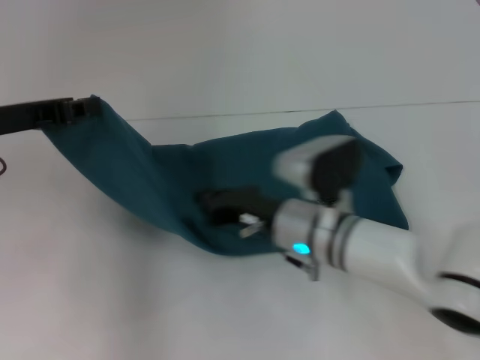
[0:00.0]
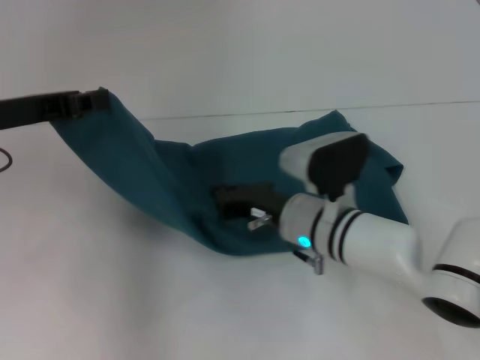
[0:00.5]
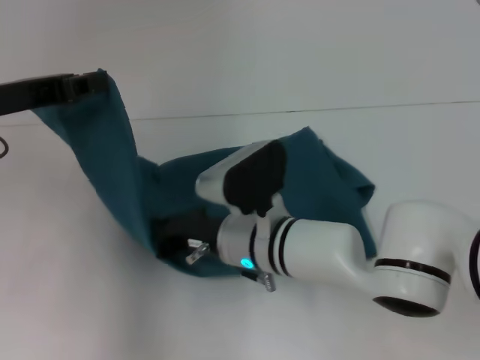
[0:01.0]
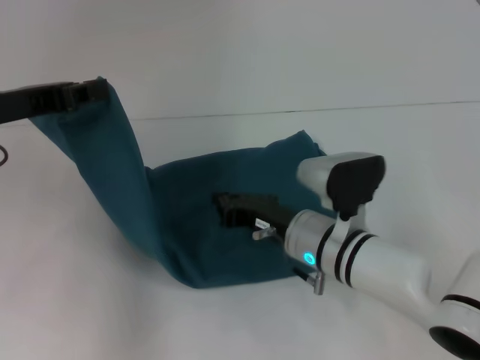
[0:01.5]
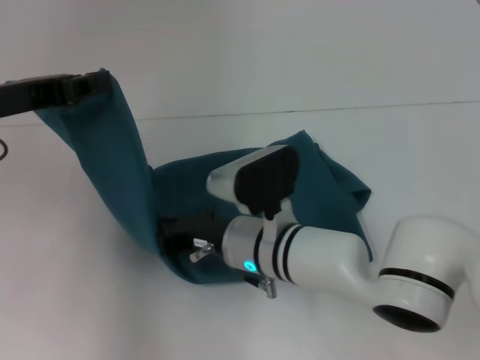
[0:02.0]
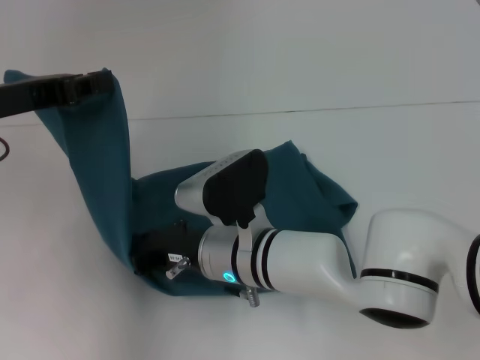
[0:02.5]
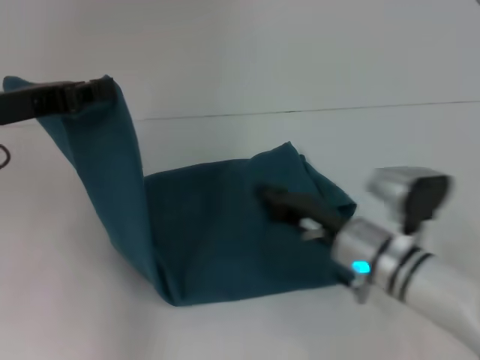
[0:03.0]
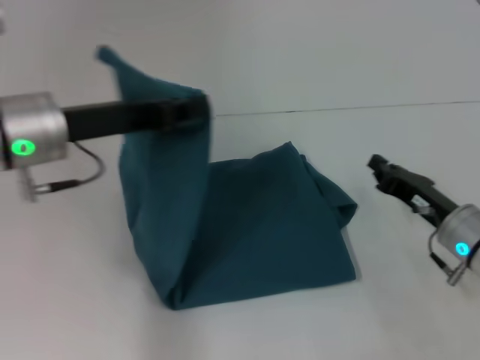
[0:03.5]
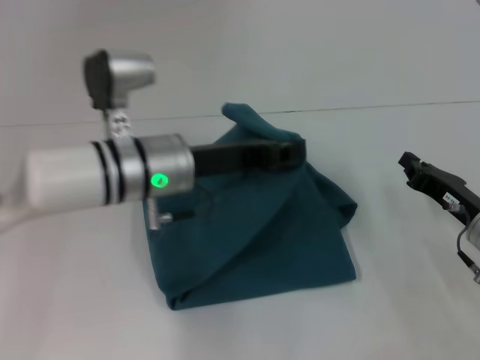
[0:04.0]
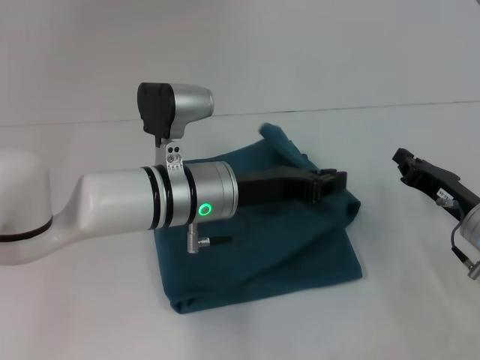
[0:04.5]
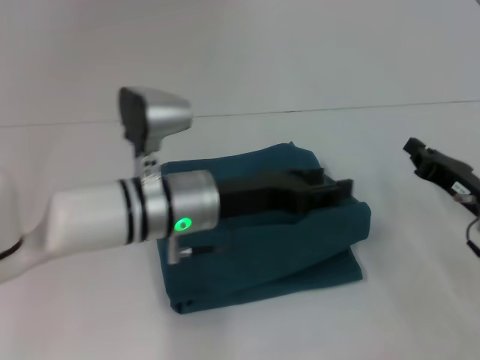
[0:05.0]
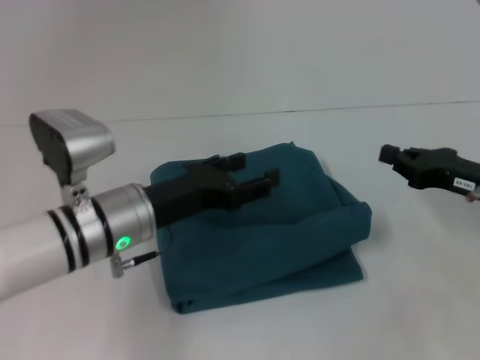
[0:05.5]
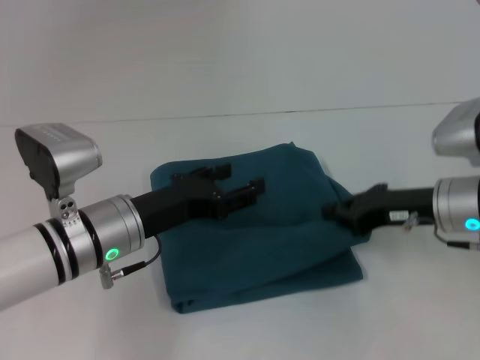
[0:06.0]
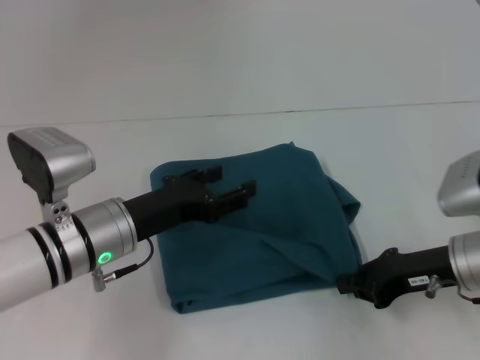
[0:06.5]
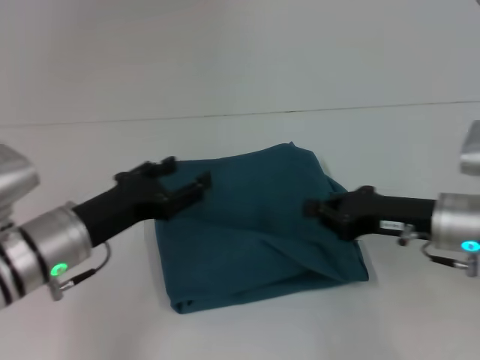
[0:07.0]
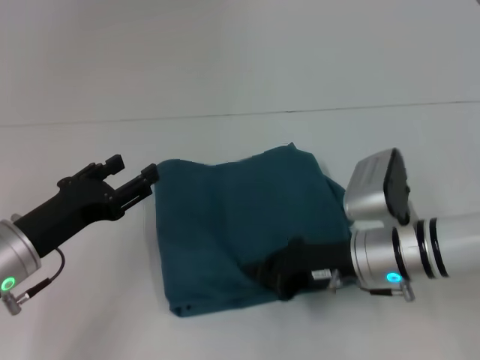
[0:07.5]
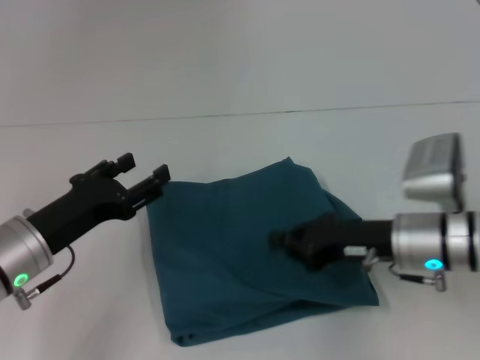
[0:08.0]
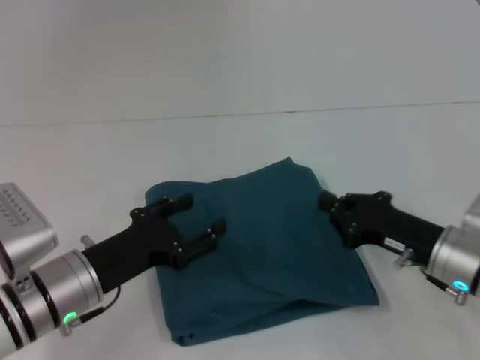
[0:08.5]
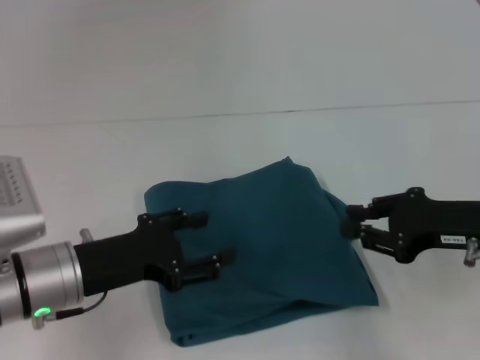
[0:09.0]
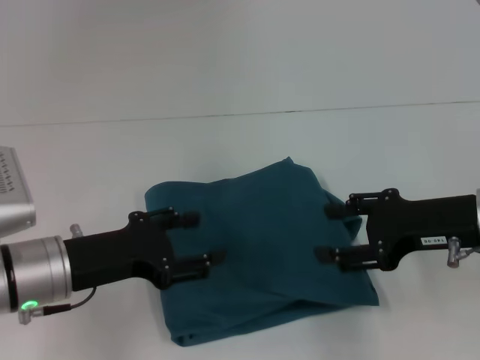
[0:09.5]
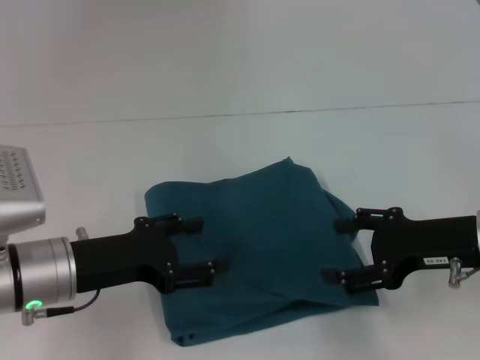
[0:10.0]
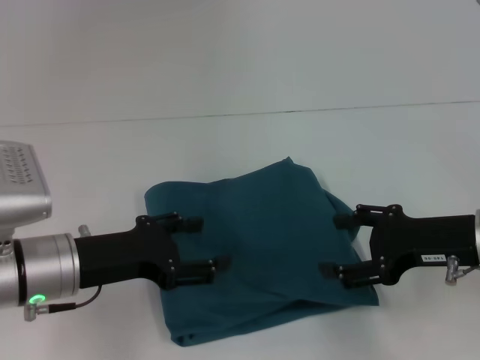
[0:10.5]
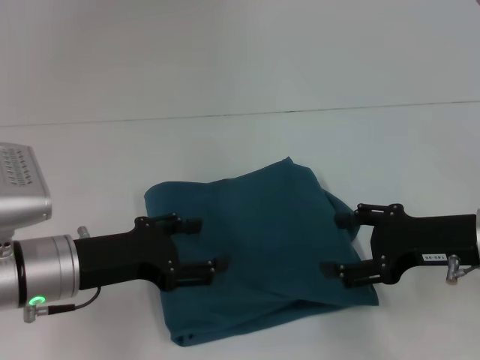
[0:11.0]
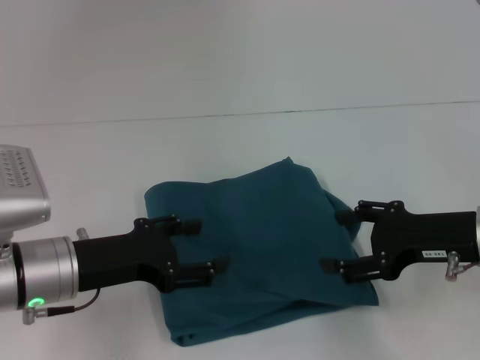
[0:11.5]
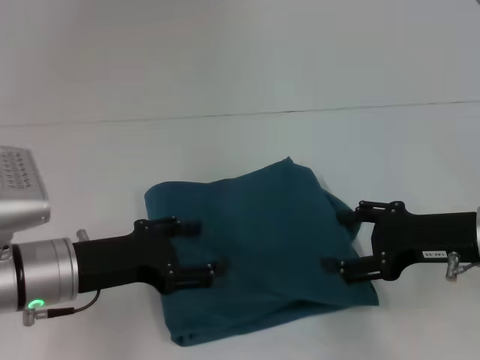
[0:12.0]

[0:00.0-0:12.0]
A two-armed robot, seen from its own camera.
Step, 0:00.0 to 0:02.5: Press the middle of the clothes with your right hand.
Step, 0:03.0 to 0:04.5: Fold the clothes to the left.
0:00.0 to 0:02.0: The right gripper moves left and right over about 5 cm, changing direction 2 times.
0:02.0 to 0:04.0: The right gripper is displaced to the right by some 25 cm. The left gripper shifts roughly 20 cm to the right and downward.
0:04.0 to 0:06.0: The right gripper goes about 5 cm upward. Meanwhile the left gripper ends up some 10 cm from where it was, and opens up.
0:06.0 to 0:08.0: The left gripper heads to the left, covering roughly 10 cm.
0:08.0 to 0:10.0: The right gripper heads to the right, covering roughly 5 cm, and opens up.
0:10.0 to 0:12.0: Both grippers stay about where they are.

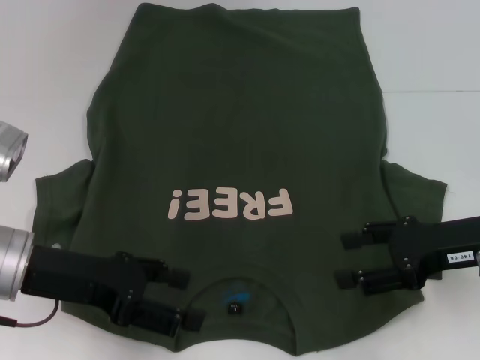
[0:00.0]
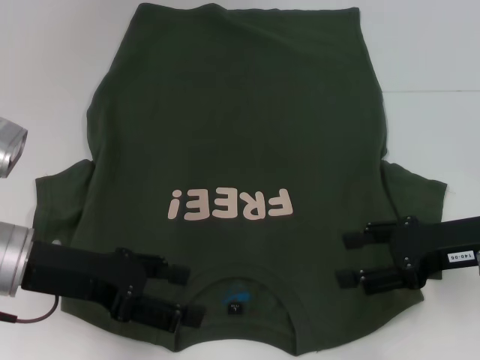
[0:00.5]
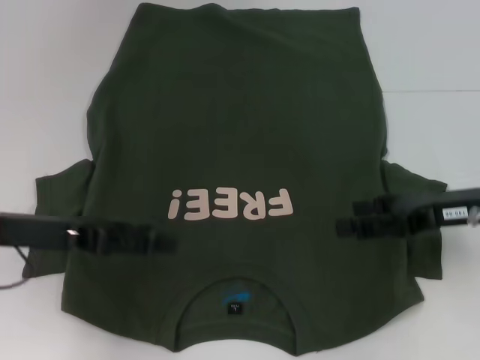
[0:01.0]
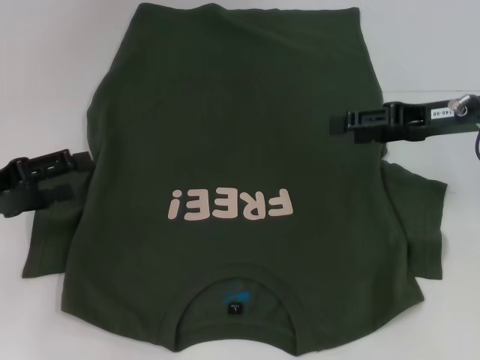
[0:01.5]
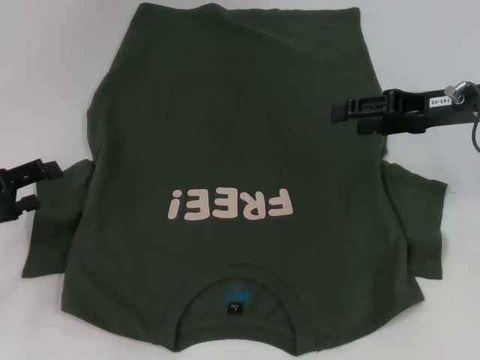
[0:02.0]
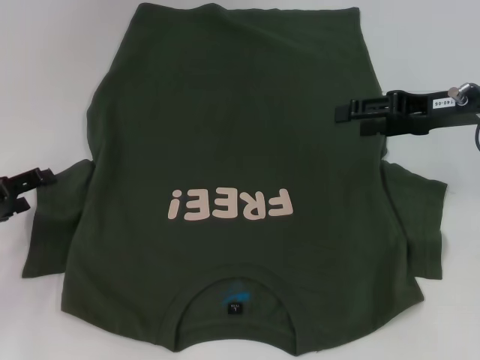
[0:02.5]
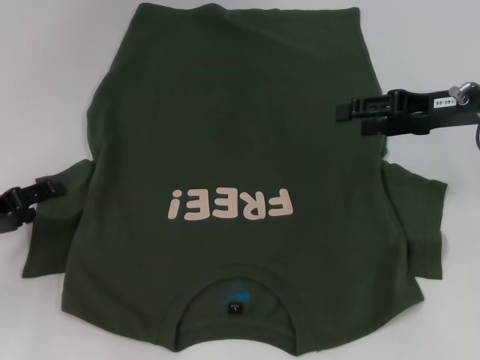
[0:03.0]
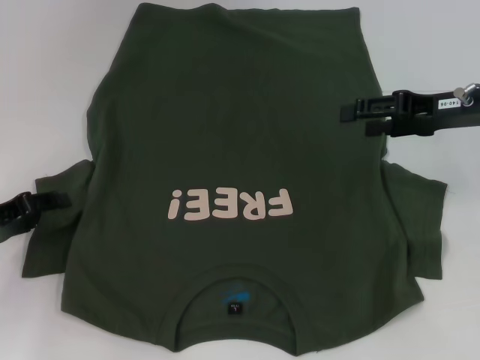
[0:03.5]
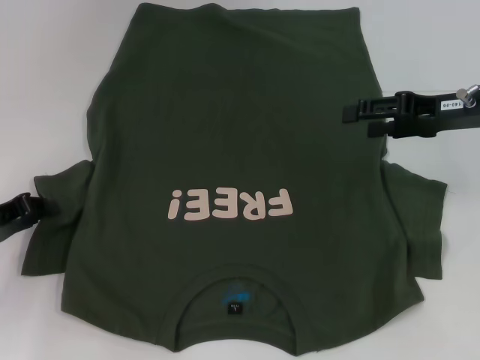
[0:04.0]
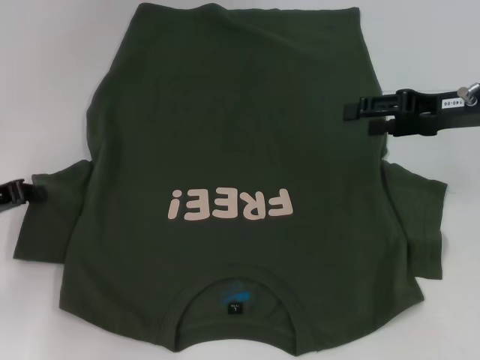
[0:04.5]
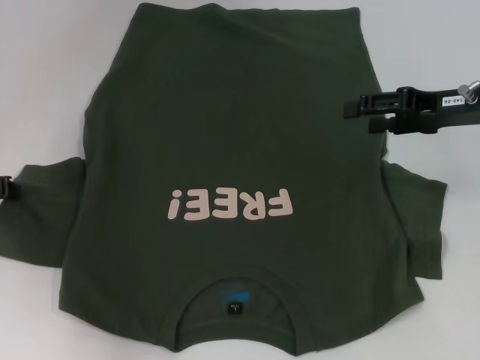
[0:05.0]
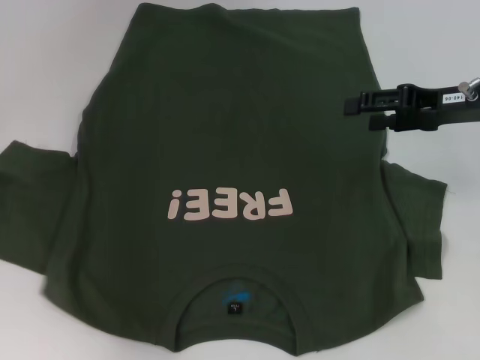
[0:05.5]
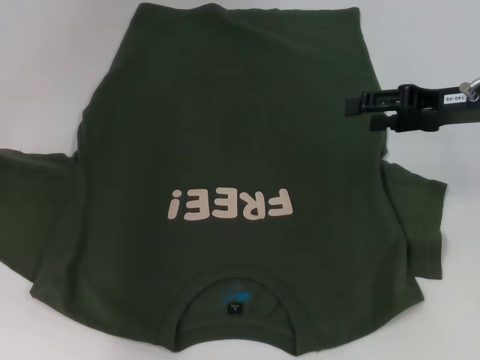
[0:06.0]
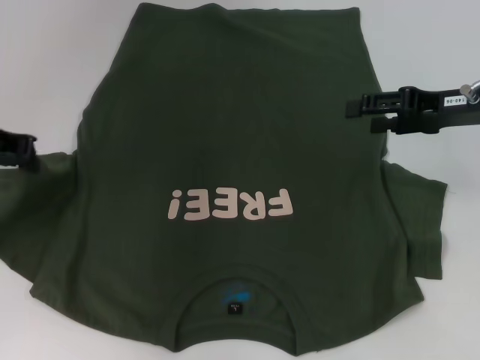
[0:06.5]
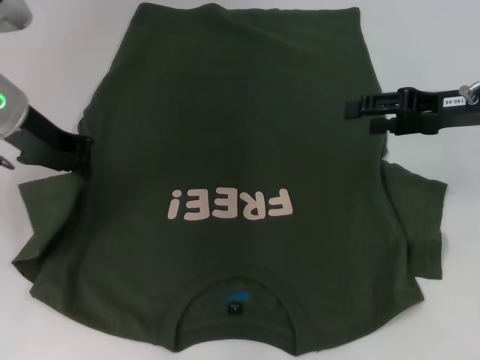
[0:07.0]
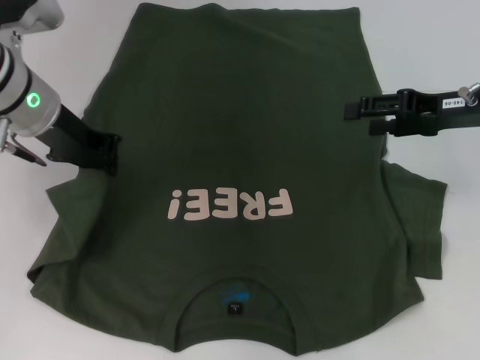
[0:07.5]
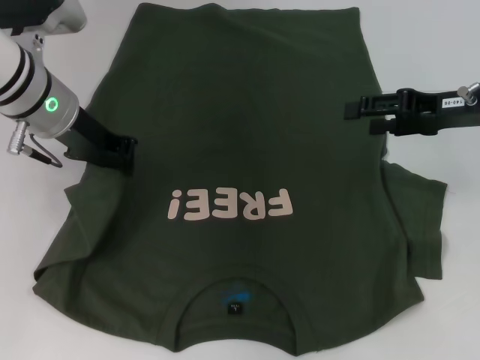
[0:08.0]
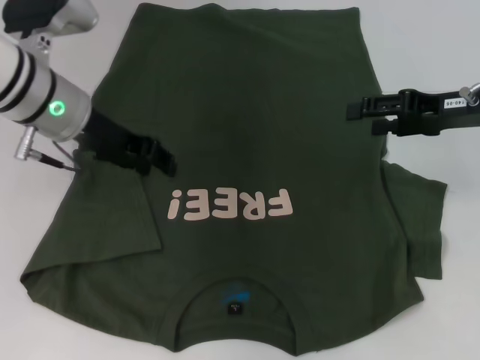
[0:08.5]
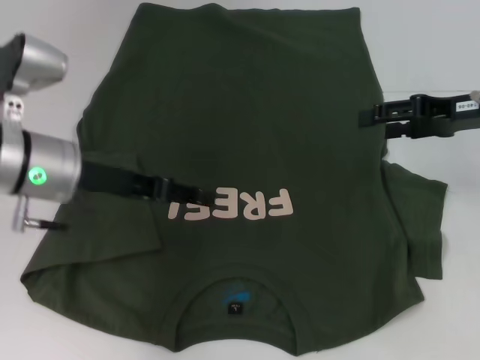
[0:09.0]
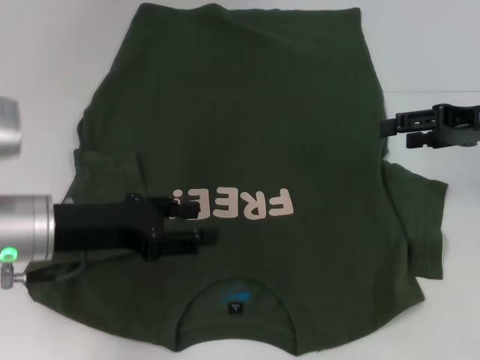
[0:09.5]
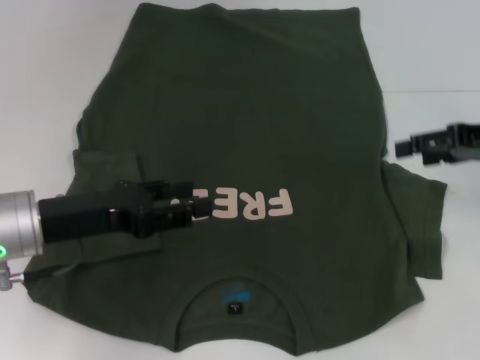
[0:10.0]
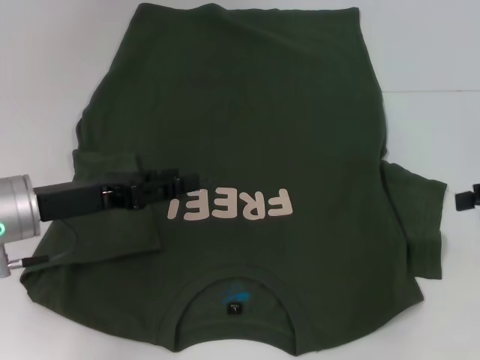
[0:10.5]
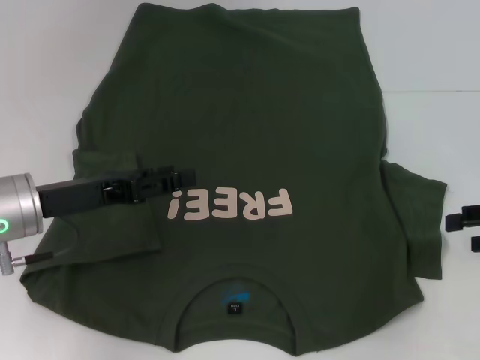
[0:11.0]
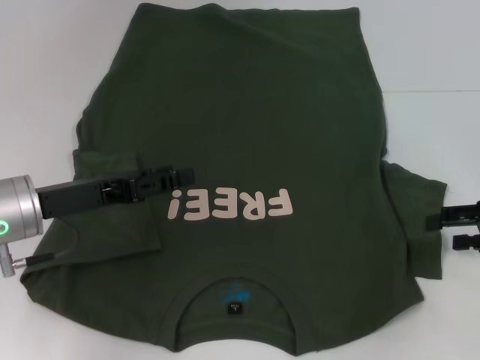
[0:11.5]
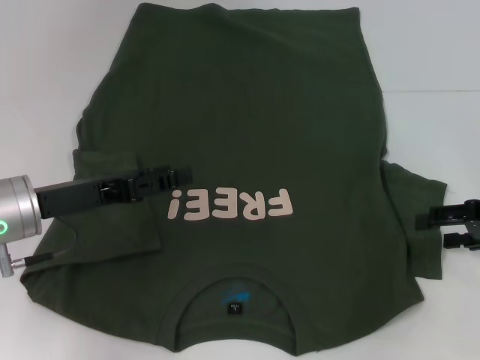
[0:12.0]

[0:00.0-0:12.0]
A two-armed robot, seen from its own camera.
Step, 0:00.0 to 0:08.0: Fold the bottom left sleeve with your left hand.
0:00.0 to 0:02.0: The right gripper travels forward and upward by roughly 10 cm. The left gripper shifts about 10 cm to the left.
0:02.0 to 0:04.0: The left gripper closes.
0:04.0 to 0:06.0: The left gripper is displaced upward and forward by roughly 10 cm, and closes its fingers.
0:06.0 to 0:08.0: The left gripper shifts roughly 15 cm to the right.
0:08.0 to 0:10.0: The left gripper goes about 15 cm backward and downward, and opens its fingers.
0:10.0 to 0:12.0: The right gripper shifts some 5 cm downward.

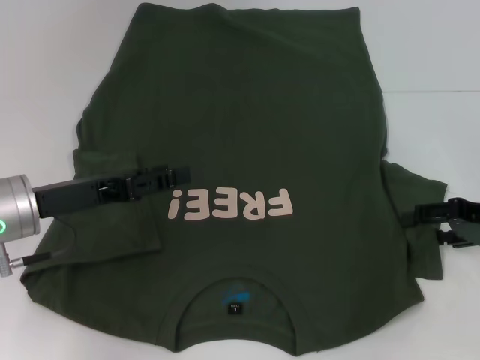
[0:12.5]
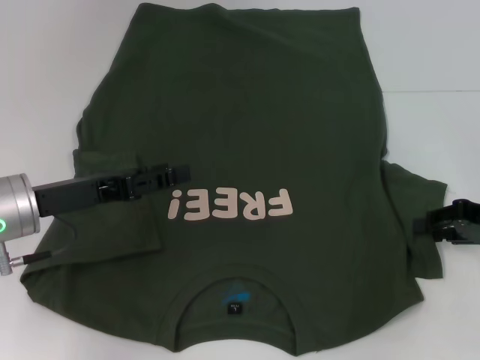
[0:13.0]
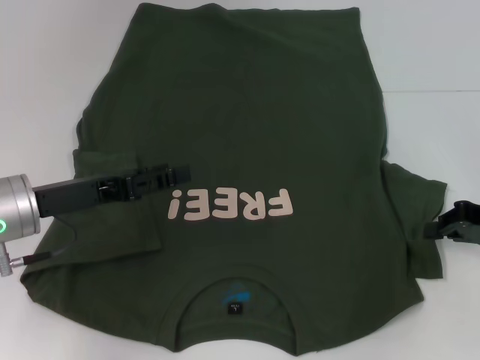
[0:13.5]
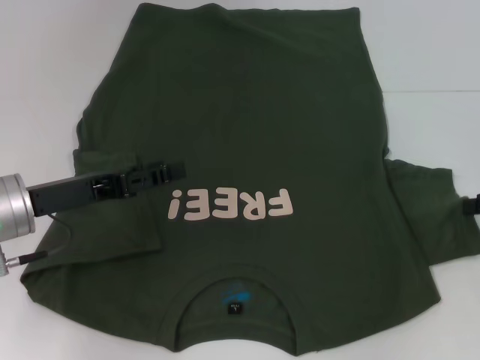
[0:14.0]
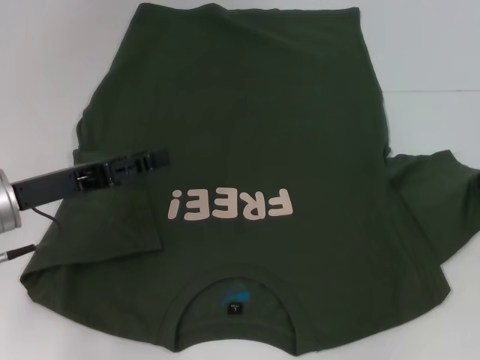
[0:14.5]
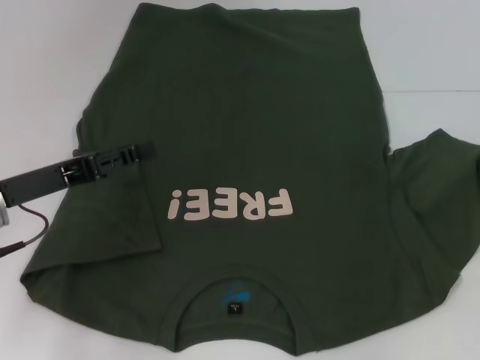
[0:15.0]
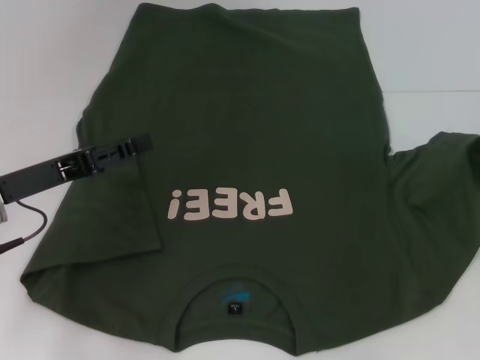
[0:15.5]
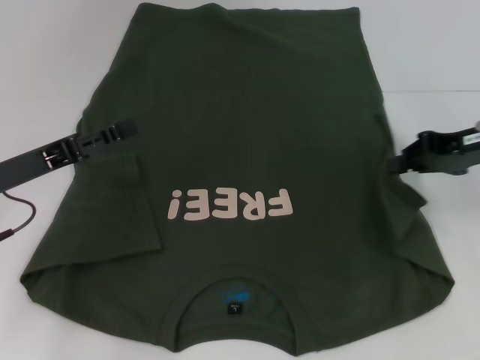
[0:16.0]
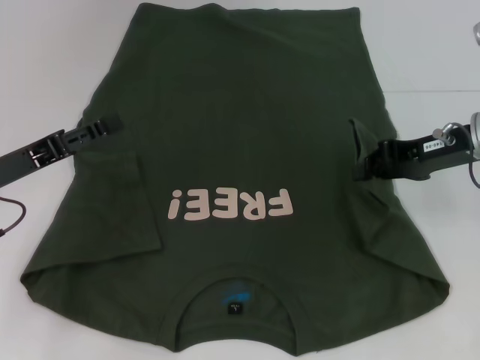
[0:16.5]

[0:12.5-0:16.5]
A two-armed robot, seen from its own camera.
0:12.5 to 0:14.5: The right gripper changes place by some 5 cm, and closes up.
0:14.5 to 0:16.5: The right gripper moves to the left, approximately 10 cm.
